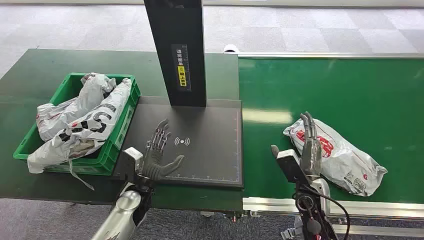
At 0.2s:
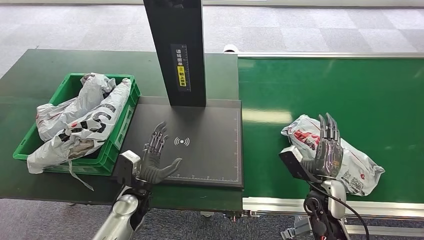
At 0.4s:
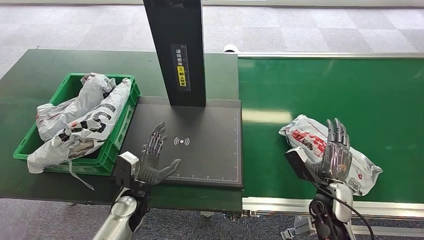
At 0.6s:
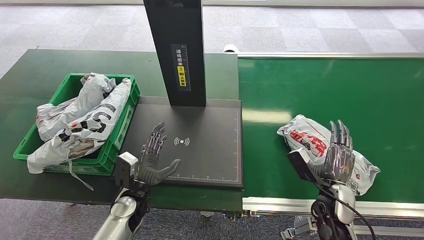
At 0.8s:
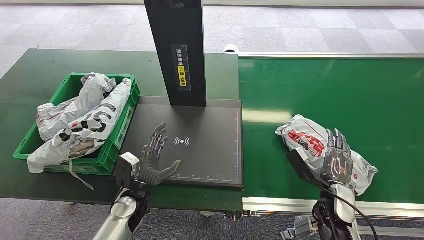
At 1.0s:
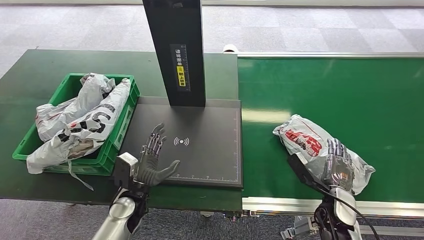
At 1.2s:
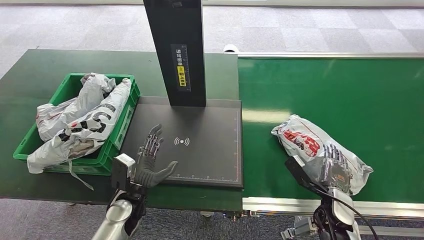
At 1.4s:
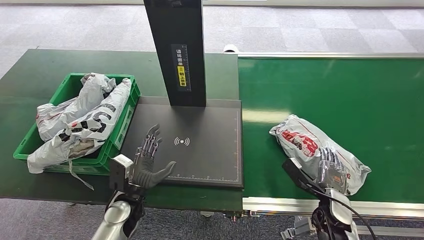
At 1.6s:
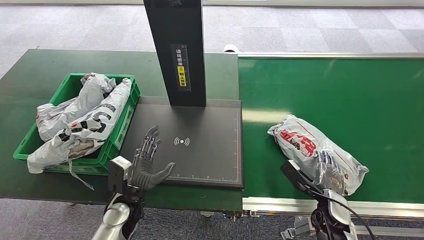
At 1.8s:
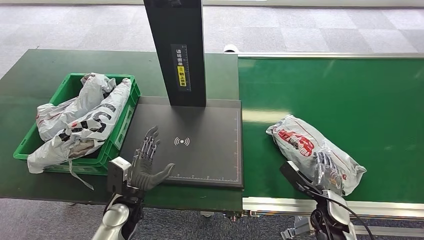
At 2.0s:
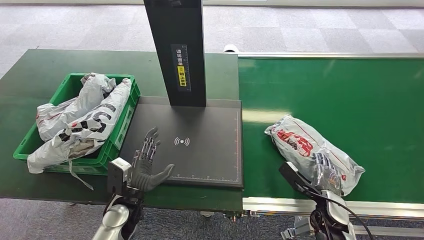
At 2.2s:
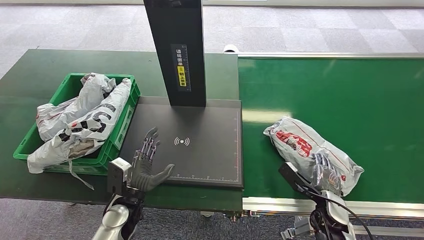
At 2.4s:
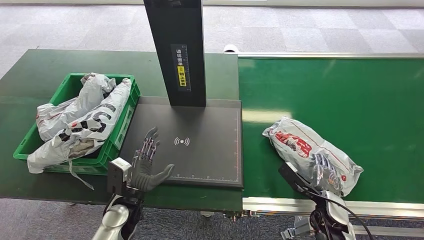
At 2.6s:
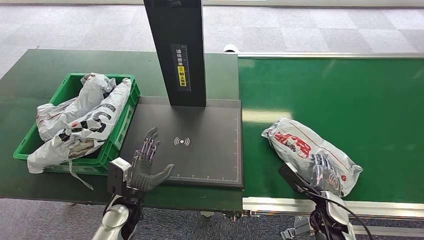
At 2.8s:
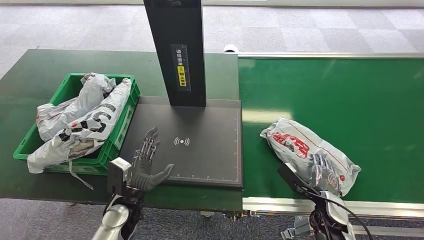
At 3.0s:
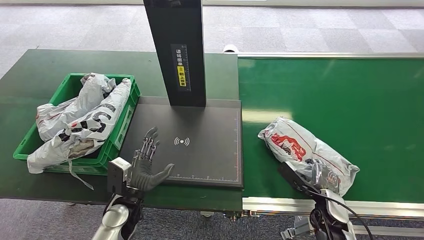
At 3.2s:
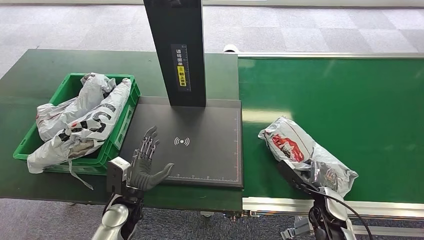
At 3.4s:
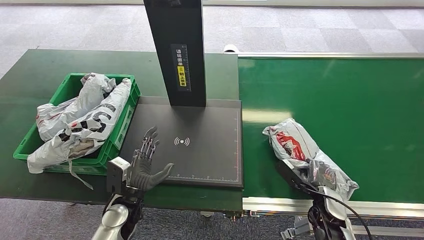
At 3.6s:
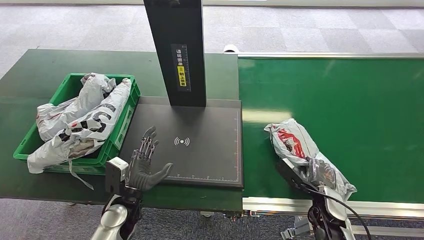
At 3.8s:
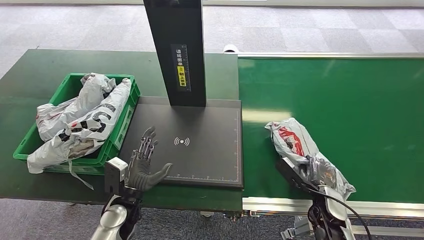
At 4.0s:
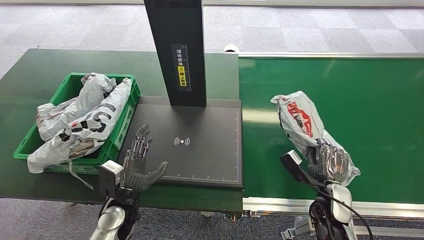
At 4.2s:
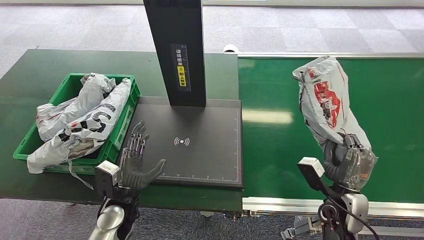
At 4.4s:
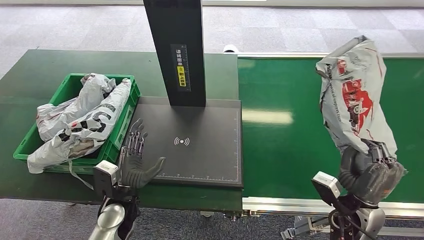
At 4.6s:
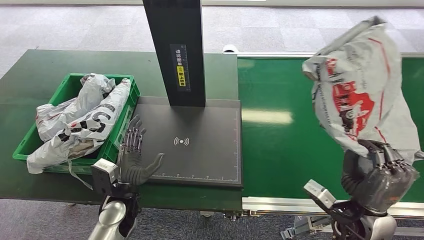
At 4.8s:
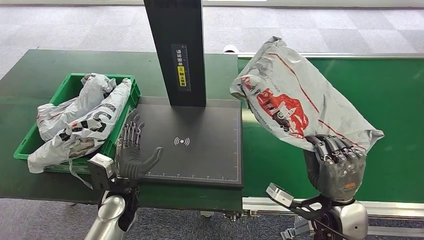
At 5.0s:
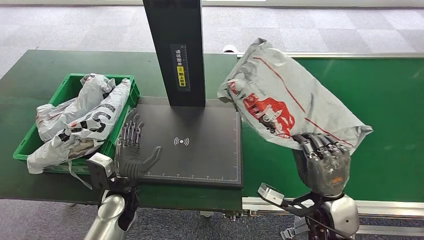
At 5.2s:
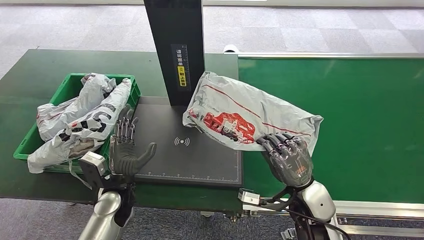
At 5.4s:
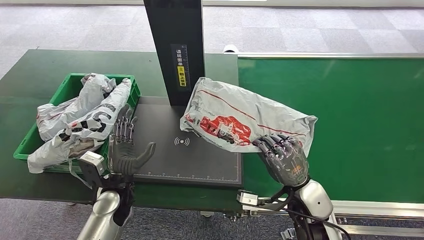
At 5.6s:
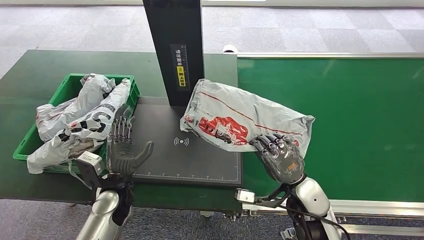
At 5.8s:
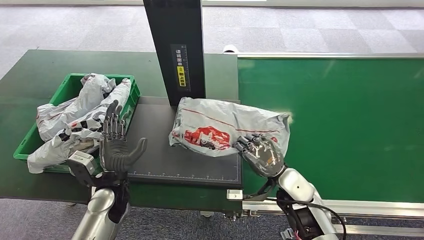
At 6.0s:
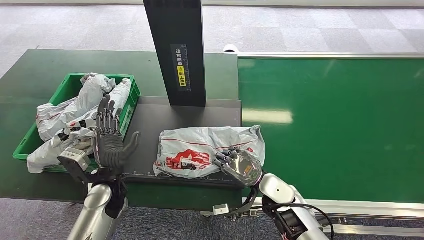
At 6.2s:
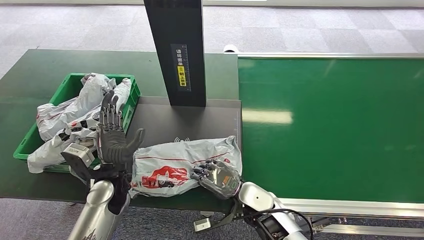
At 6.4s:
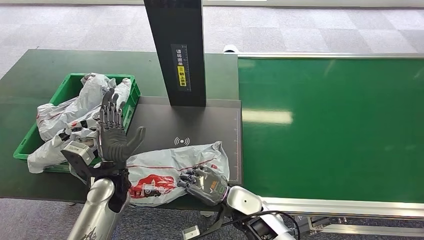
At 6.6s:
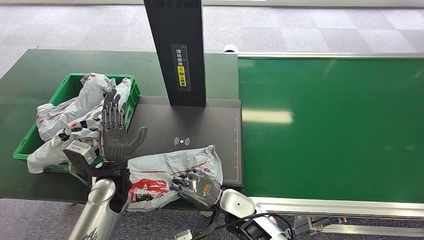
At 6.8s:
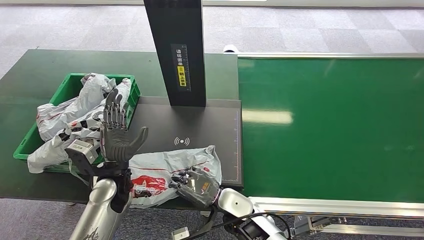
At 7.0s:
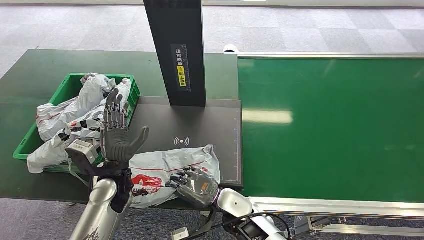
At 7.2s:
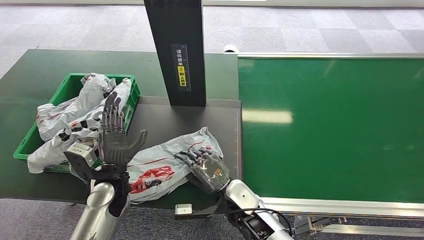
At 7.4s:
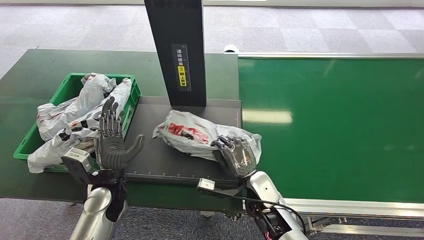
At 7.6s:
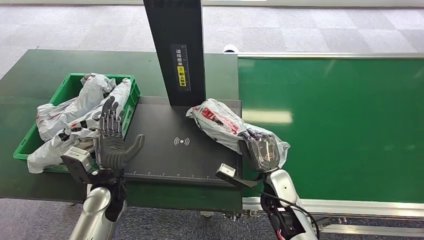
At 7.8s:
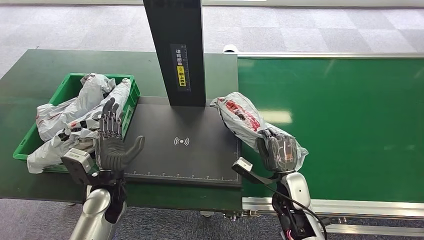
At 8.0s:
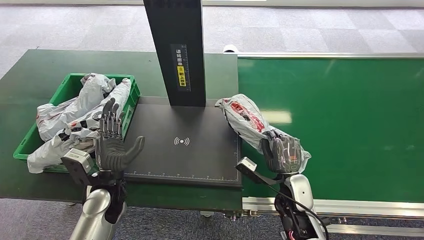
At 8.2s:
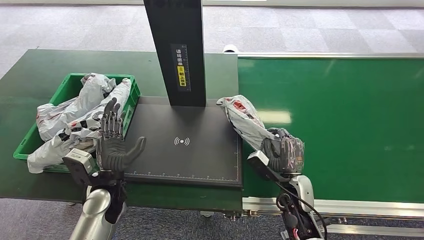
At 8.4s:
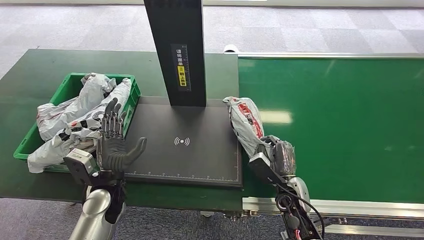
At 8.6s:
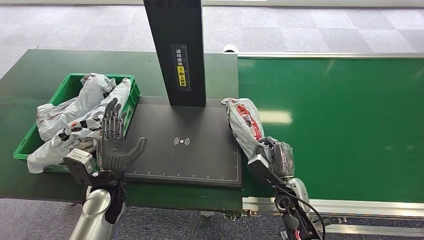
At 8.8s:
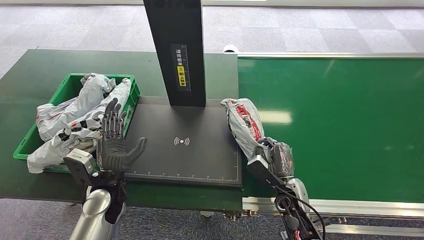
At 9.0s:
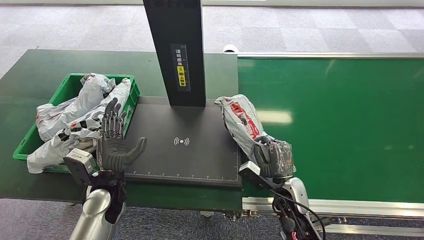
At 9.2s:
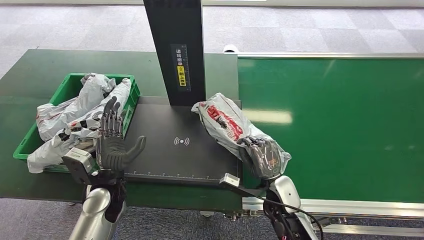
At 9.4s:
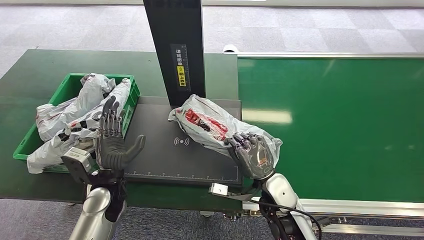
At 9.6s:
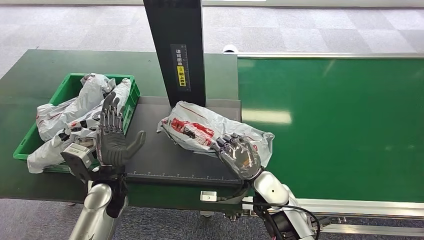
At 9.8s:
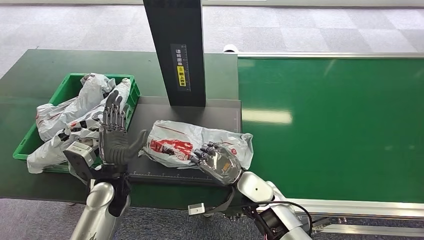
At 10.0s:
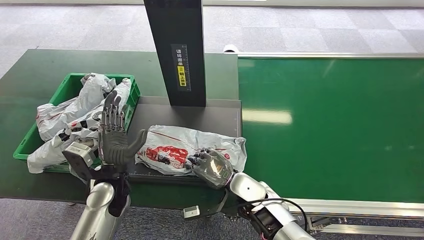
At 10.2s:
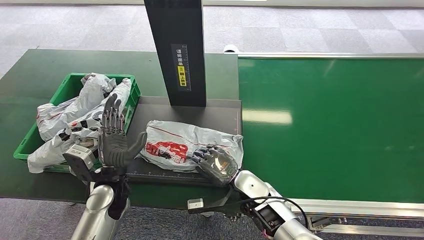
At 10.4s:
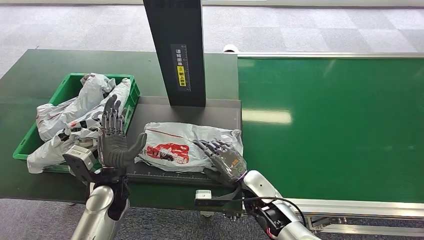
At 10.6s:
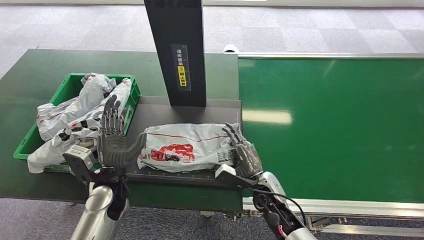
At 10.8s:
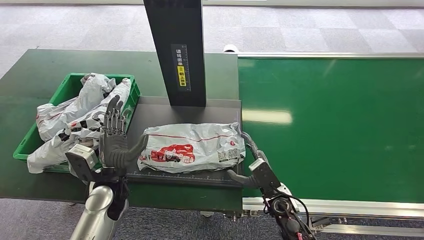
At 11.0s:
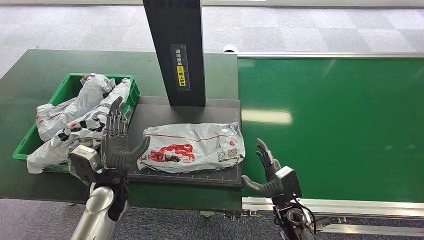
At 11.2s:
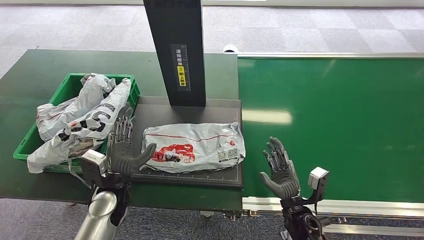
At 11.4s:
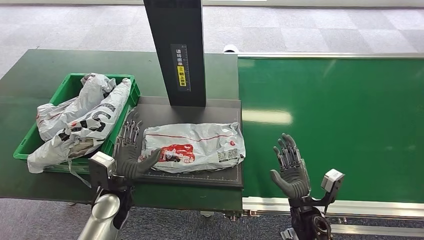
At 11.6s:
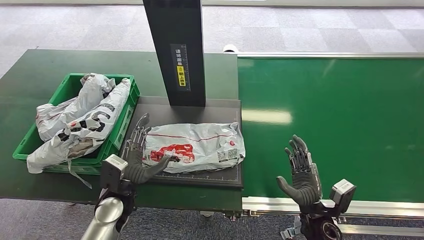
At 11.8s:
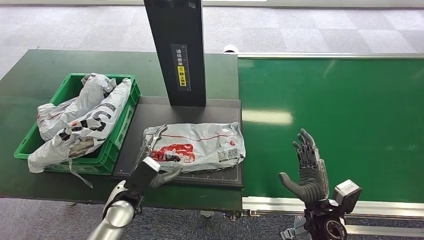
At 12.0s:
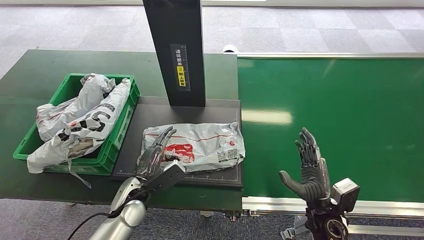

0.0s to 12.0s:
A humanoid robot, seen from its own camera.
Task of the whole recording: Weigh the package on the weighing device and place it in the left basket.
Step, 0.0s to 4.2s: Pick up the package from the conveyor belt.
Step, 4.6s to 11.0s: Place the package onto the inbound machine.
1.6s to 3.0s: Both hands stay about where they are.
3.0s to 4.4s: The right hand heads upward, covering roughly 10 cm.
6.0s to 7.6s: The right hand travels to the left and back again, about 10 cm each way.
9.0s to 10.4s: The right hand heads to the left, covering some 5 cm.
10.4s to 12.0s: The right hand is displaced to the right and backward by some 15 cm. The left hand moves about 5 cm.

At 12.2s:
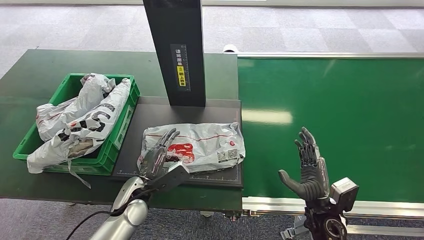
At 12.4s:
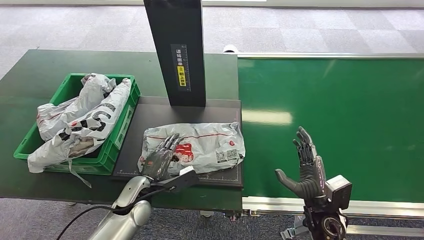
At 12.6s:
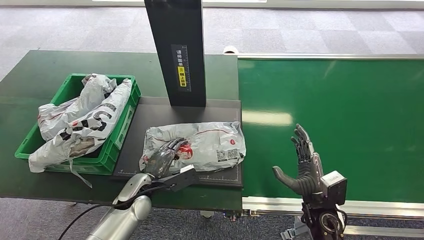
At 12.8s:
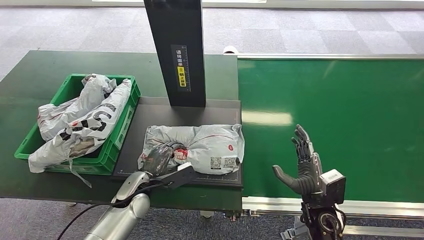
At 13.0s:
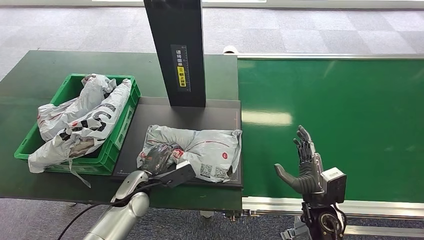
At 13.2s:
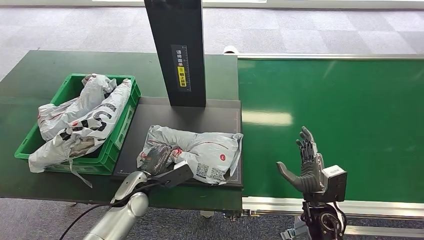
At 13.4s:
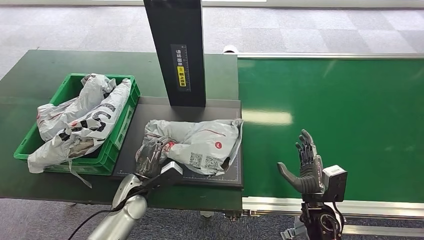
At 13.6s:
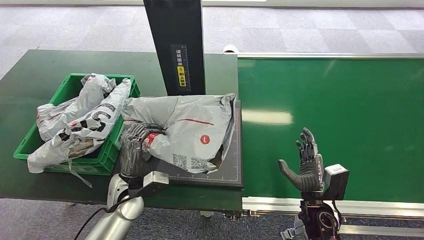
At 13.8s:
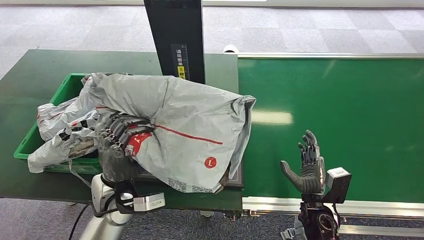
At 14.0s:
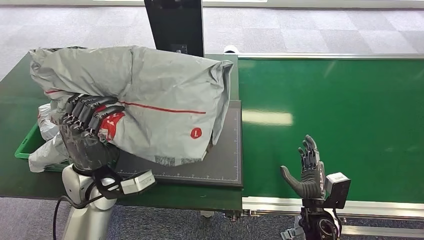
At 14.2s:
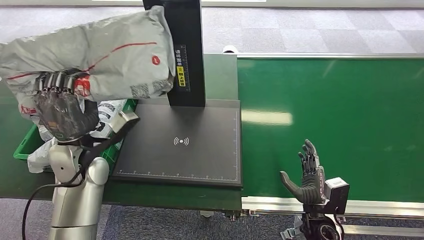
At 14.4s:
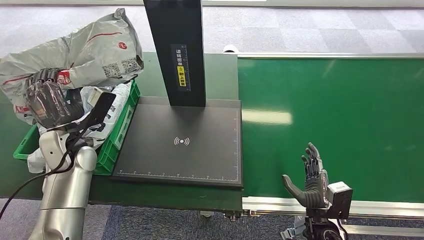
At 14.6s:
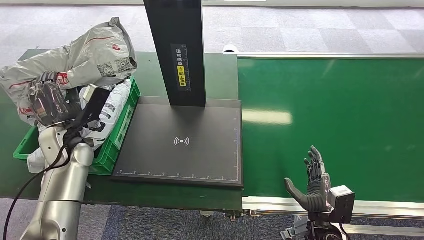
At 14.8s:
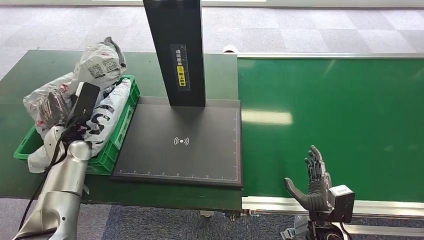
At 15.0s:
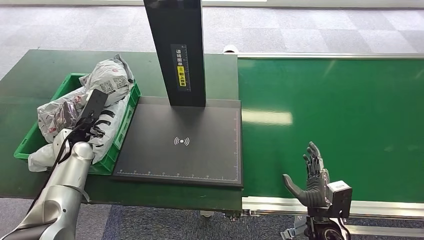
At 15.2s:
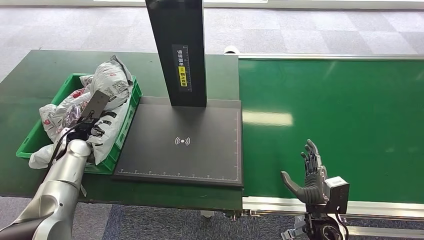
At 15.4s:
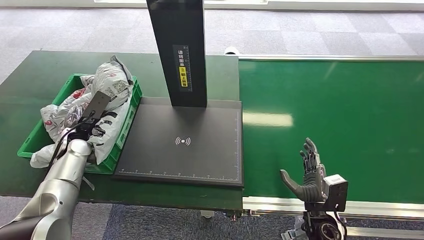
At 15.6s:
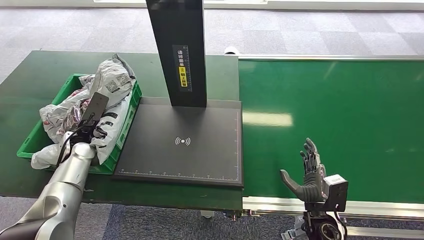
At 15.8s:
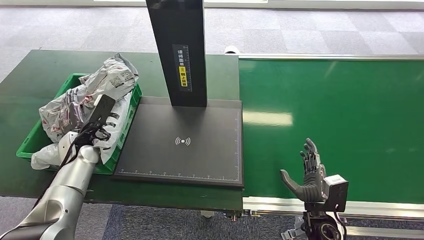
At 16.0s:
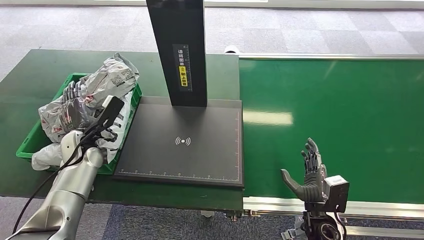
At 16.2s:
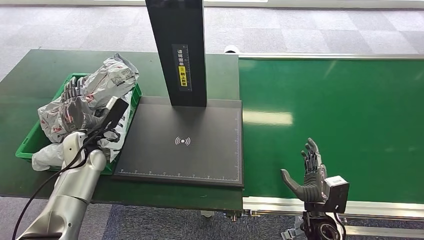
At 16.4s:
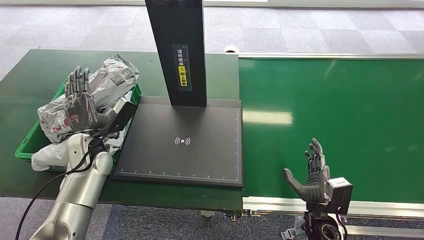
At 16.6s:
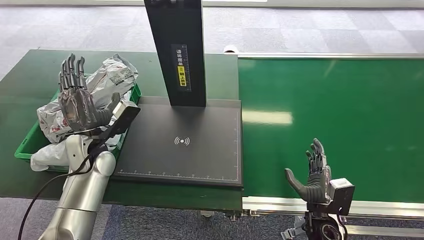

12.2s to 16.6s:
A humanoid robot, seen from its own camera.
Task of the whole recording: Weigh the package on the weighing device and place it in the left basket.
Step, 12.2s to 13.6s: Pick up the package from the inbound machine.
Step, 13.8s to 16.4s: Place the package into the parcel locker.
15.2s to 16.6s: The left hand moves to the right and upward, about 10 cm.
